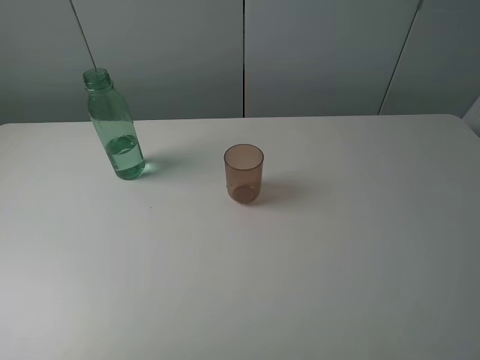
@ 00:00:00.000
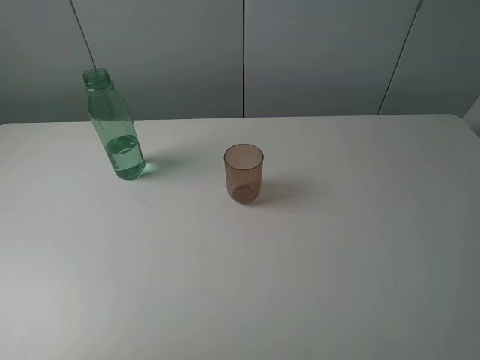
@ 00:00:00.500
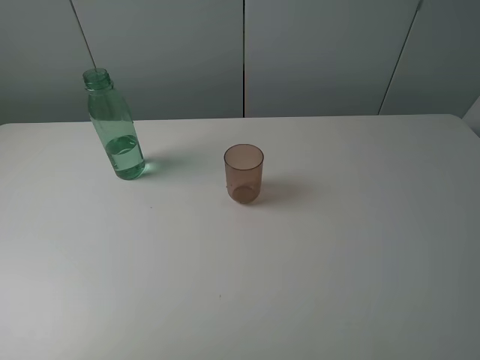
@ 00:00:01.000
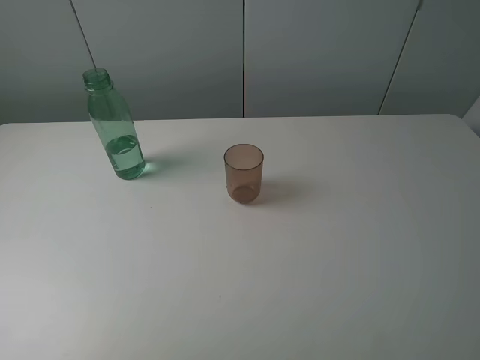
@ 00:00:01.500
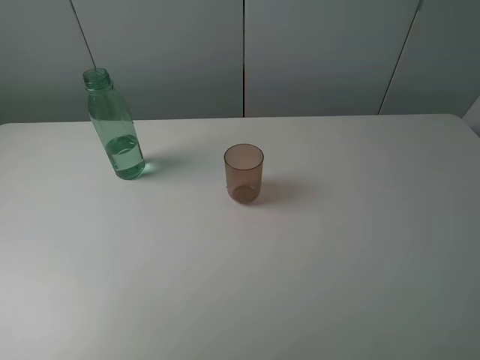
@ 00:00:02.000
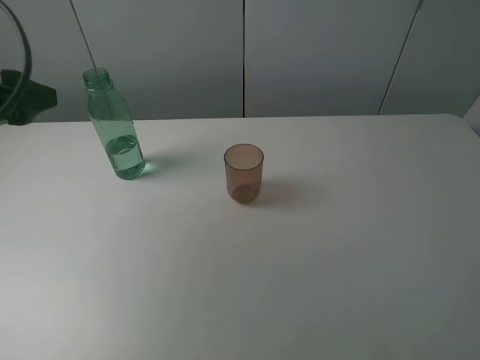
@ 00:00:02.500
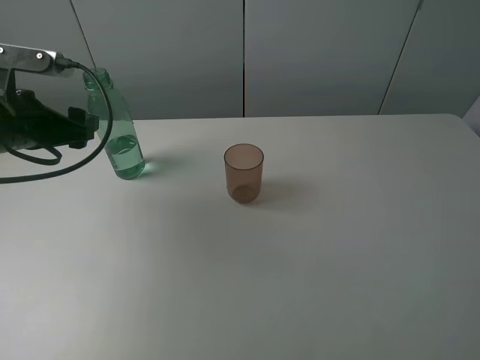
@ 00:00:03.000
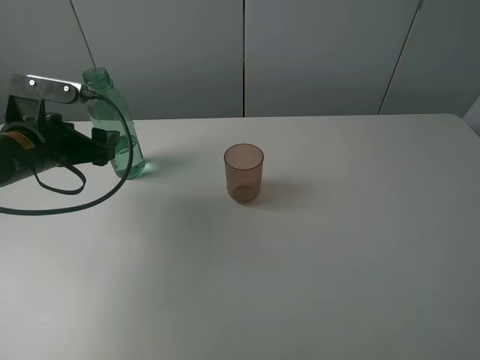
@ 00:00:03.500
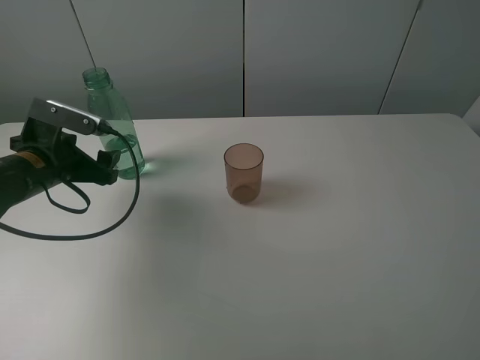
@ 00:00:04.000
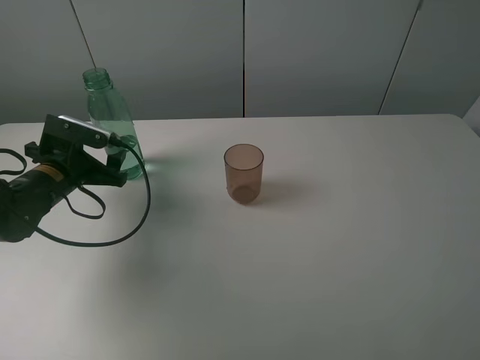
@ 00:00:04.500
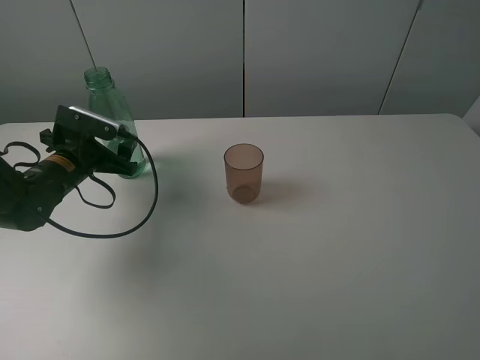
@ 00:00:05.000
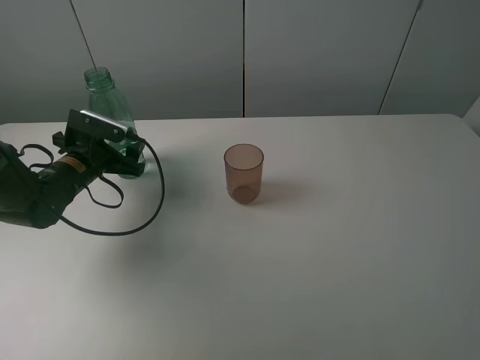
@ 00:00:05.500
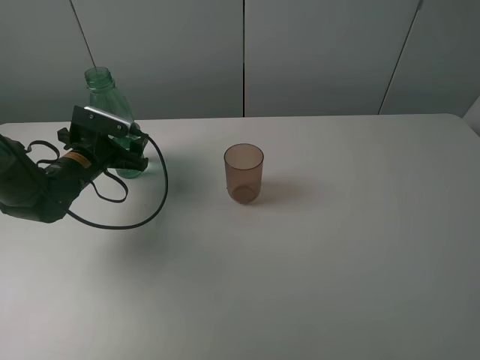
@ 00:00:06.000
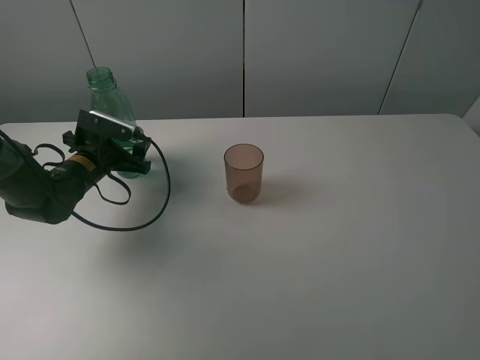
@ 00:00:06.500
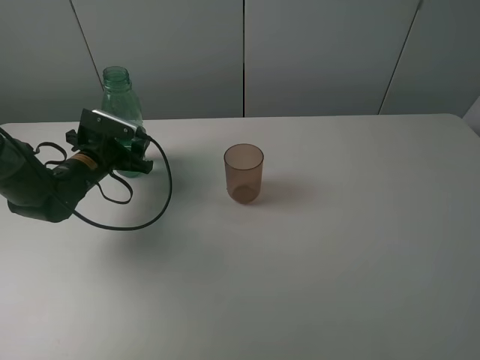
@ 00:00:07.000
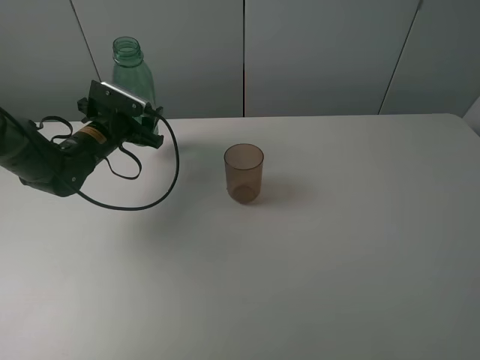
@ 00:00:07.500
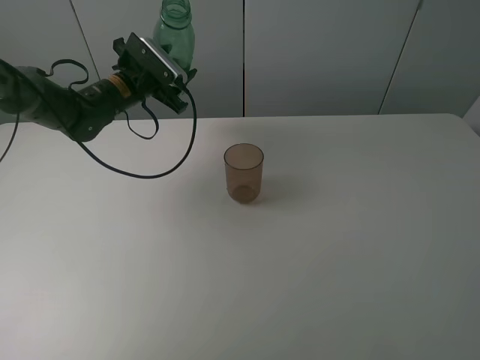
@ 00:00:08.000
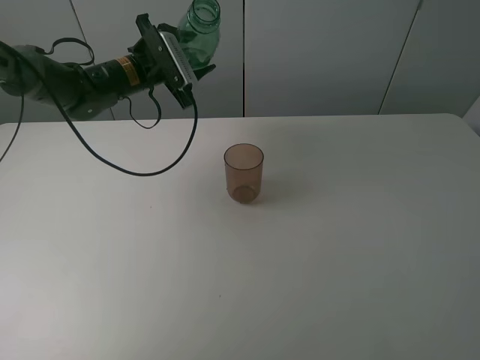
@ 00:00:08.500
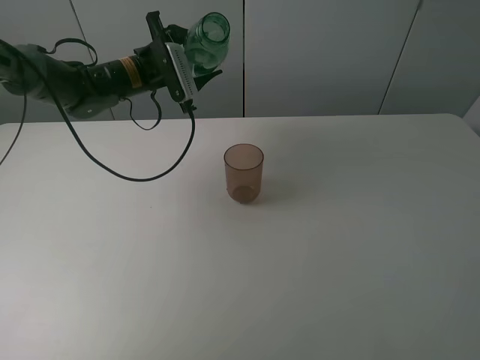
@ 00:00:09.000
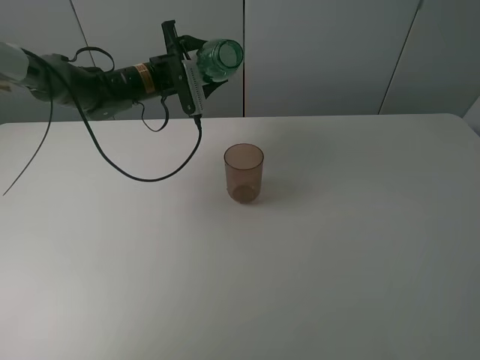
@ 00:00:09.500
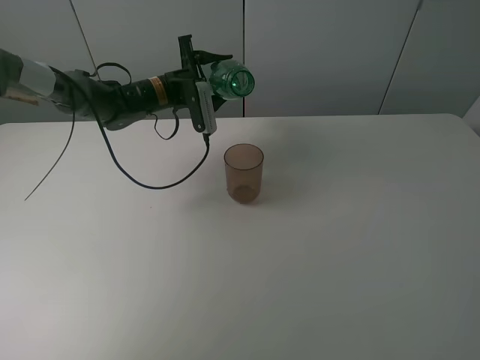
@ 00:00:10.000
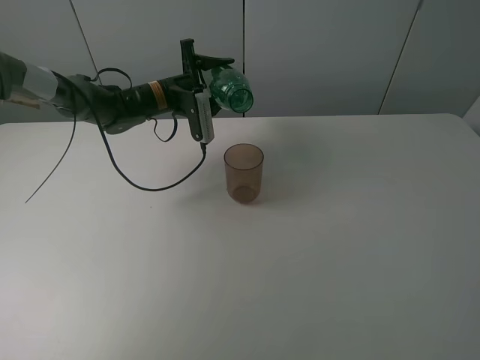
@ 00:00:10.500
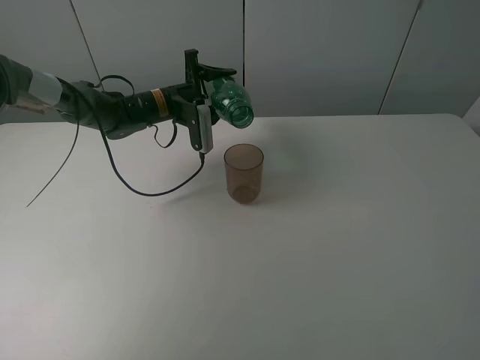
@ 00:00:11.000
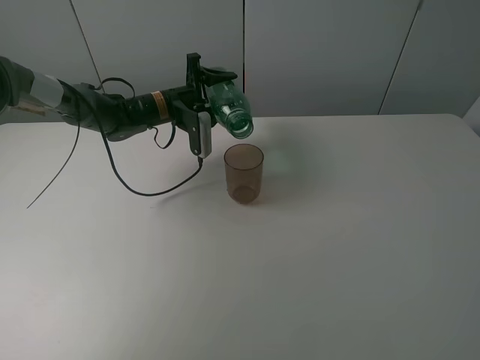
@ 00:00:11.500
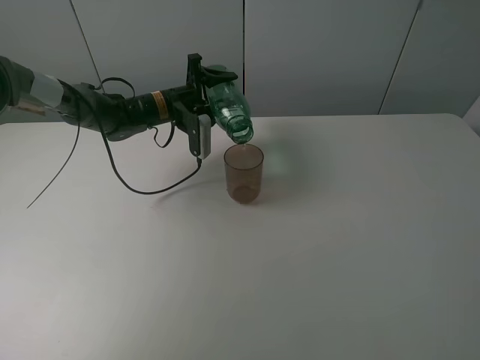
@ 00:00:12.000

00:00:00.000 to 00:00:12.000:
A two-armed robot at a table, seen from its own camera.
Task of the whole recording: pick up the bottle filled with water and pour it into the pink cup.
Step, 00:00:00.000 to 00:00:06.500: Grasp the green bottle with the left gripper.
00:00:02.000 to 00:00:04.000: The left gripper moves downward and forward, roughly 30 cm.
00:00:04.000 to 00:00:06.000: The left gripper shifts about 5 cm forward.
00:00:06.000 to 00:00:08.000: The left gripper is displaced forward, upward and to the right by some 15 cm, and closes up.
00:00:08.000 to 00:00:10.000: The left gripper moves to the right, about 5 cm.

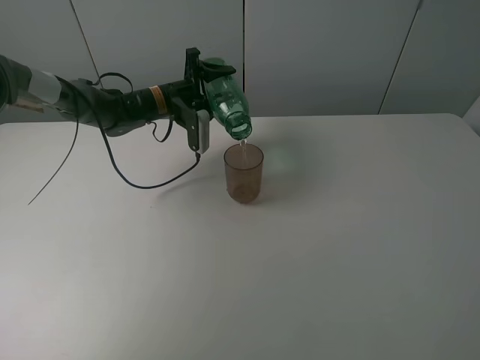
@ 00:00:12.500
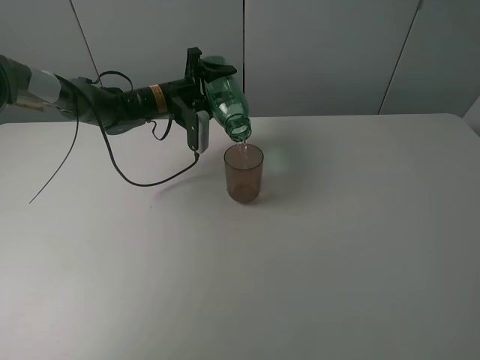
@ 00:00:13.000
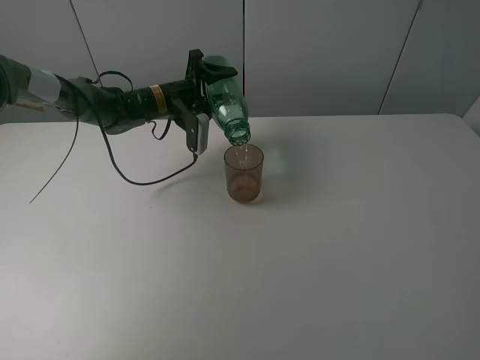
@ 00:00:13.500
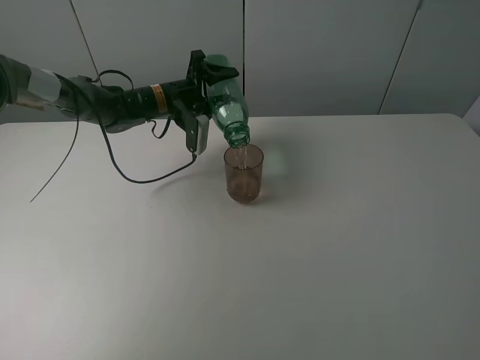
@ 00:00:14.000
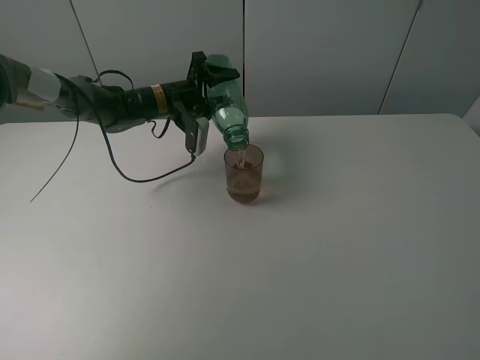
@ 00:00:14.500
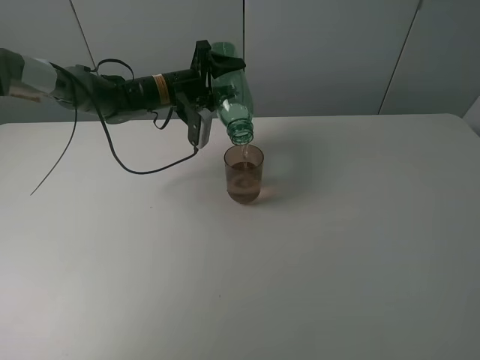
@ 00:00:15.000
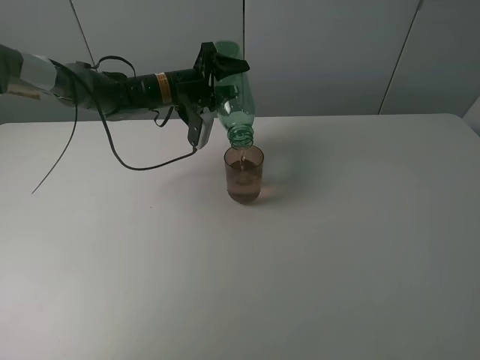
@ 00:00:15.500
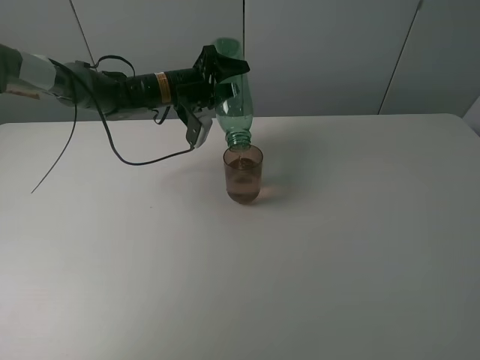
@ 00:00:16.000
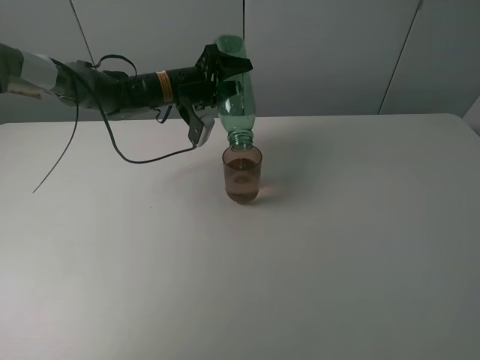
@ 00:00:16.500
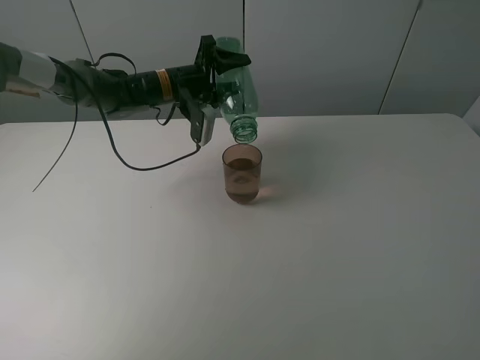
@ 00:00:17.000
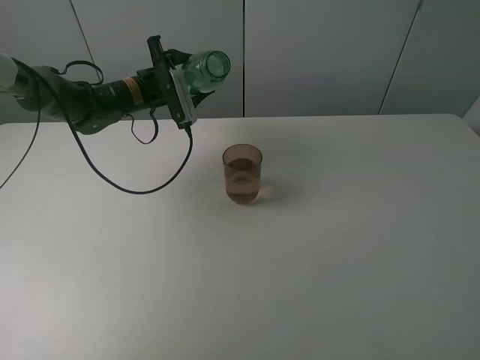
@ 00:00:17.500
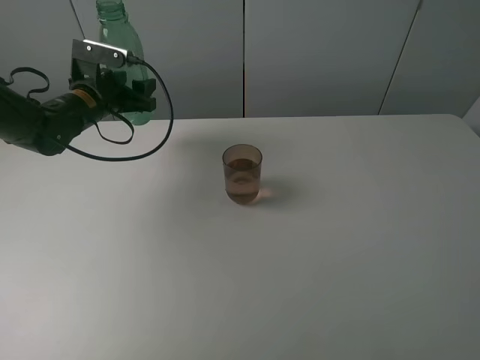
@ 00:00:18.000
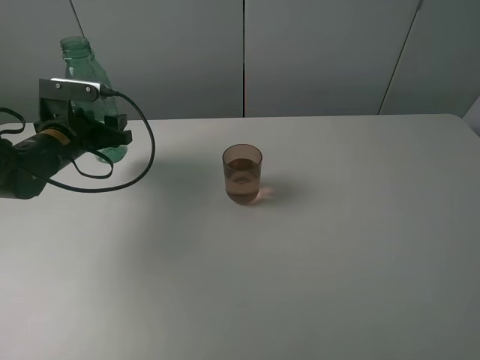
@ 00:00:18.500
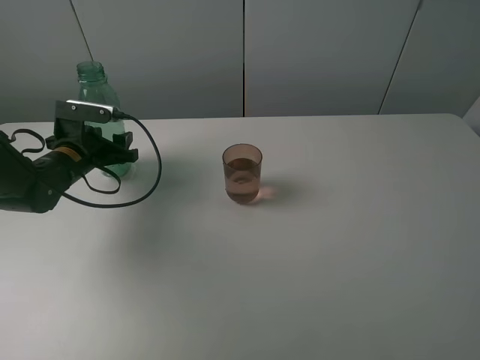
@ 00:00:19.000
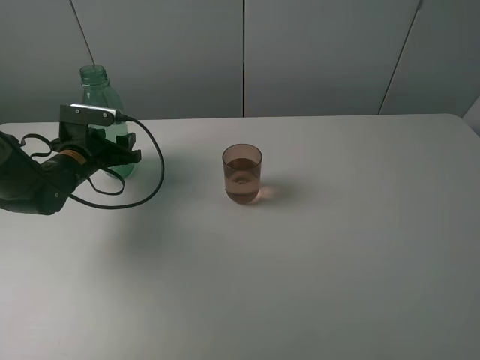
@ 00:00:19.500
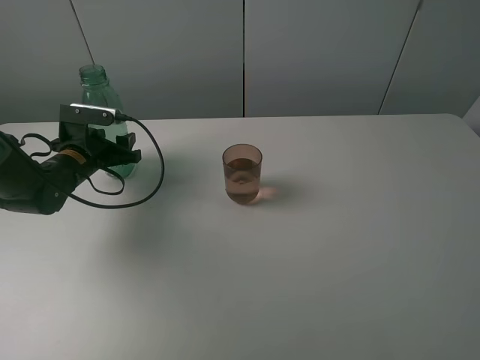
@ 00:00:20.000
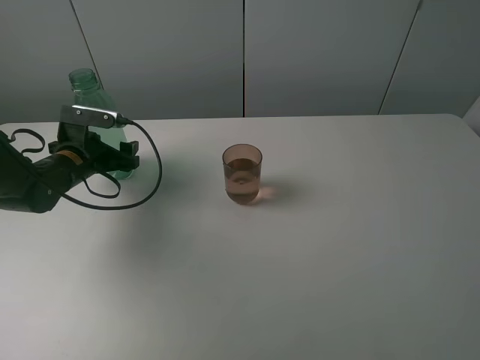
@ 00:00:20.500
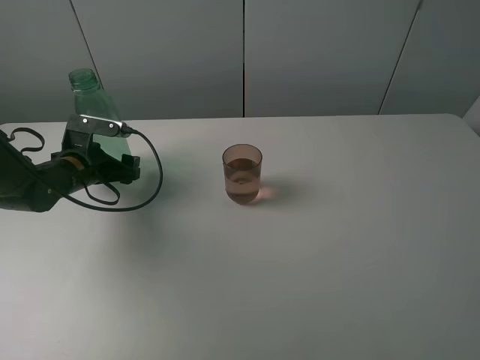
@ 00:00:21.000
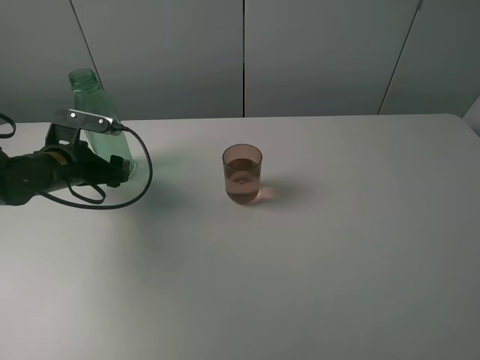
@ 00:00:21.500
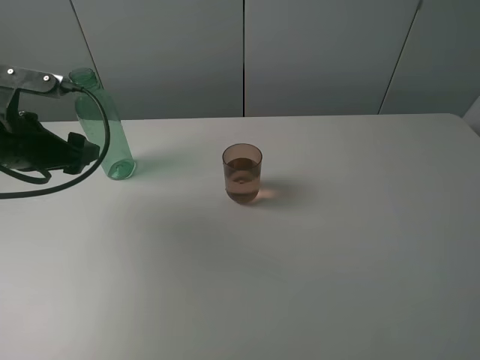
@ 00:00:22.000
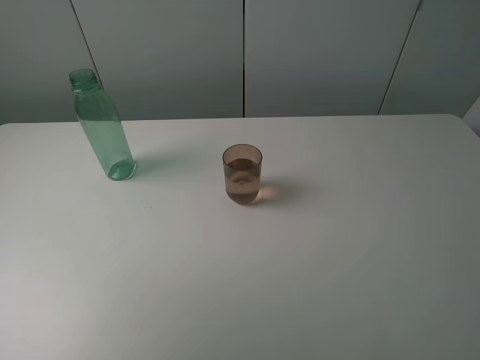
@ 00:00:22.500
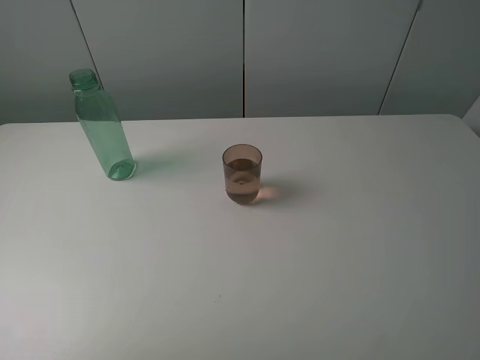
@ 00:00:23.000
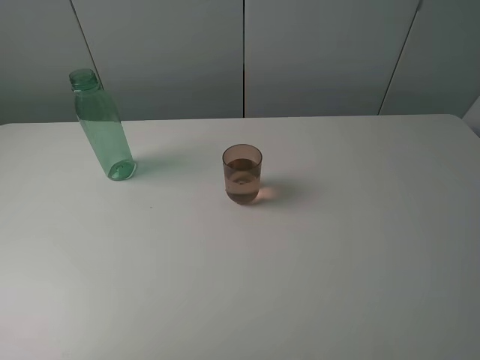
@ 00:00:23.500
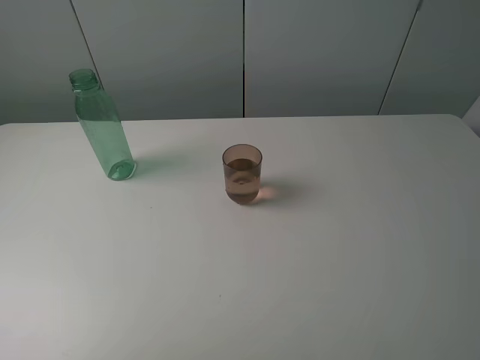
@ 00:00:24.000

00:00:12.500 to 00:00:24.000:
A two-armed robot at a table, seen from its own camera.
Task of the whole recording: pick up the bottle filled with water and pour it into the pink cup.
Step, 00:00:12.500 to 00:00:17.000: Pour water from green bottle to pink cup with the left gripper.
Step, 00:00:17.500 to 00:00:21.500: Place the green bottle with the left gripper.
00:00:12.500 to 00:00:14.500: The grippers stay close to where they were, moving slightly.
00:00:14.500 to 00:00:16.500: The grippers move only a little.
00:00:16.500 to 00:00:18.500: The left gripper is displaced to the left and backward by approximately 20 cm.
00:00:18.500 to 00:00:20.000: The grippers move only a little.
00:00:20.000 to 00:00:22.000: The left gripper goes about 15 cm upward and backward, and opens up.
00:00:22.000 to 00:00:24.000: The left gripper travels backward by about 25 cm.
